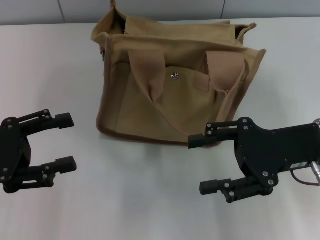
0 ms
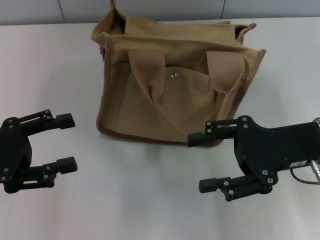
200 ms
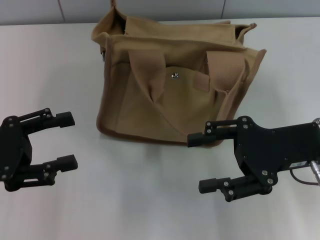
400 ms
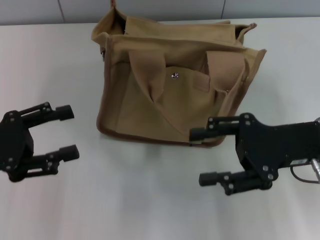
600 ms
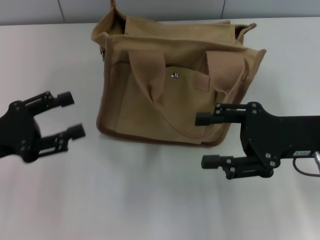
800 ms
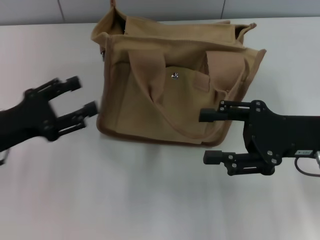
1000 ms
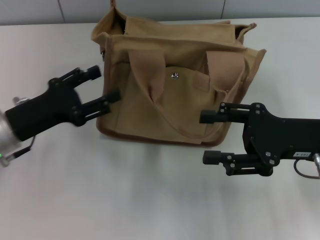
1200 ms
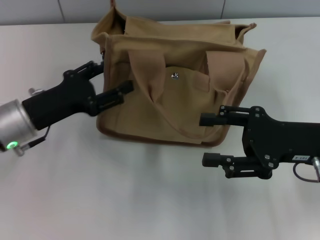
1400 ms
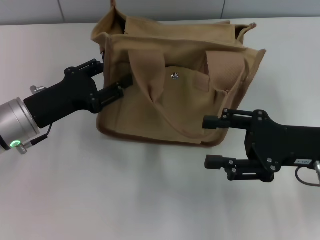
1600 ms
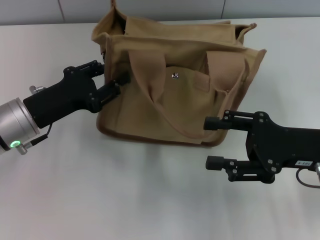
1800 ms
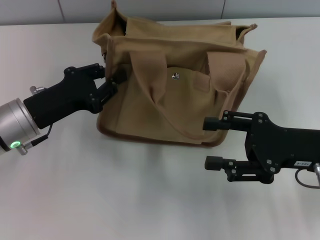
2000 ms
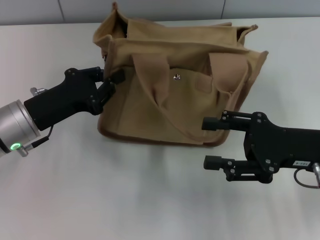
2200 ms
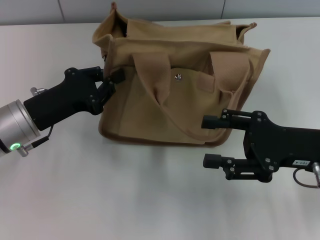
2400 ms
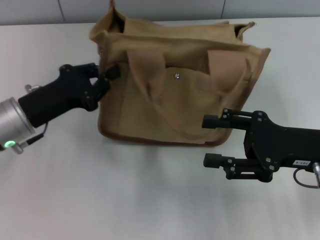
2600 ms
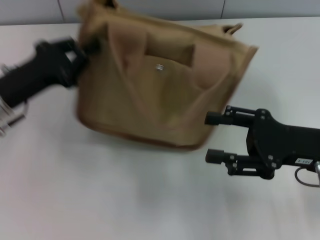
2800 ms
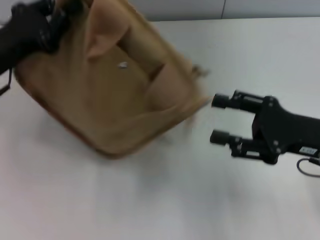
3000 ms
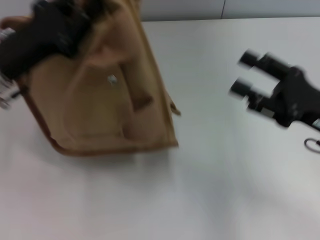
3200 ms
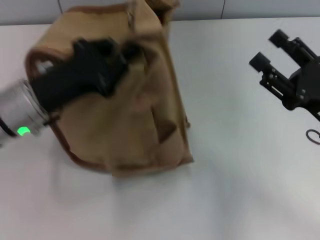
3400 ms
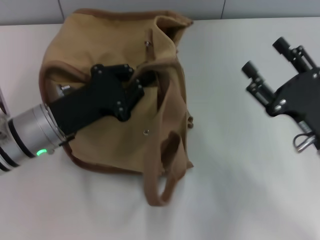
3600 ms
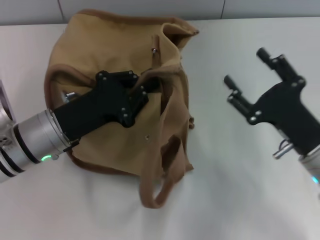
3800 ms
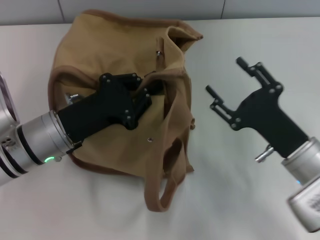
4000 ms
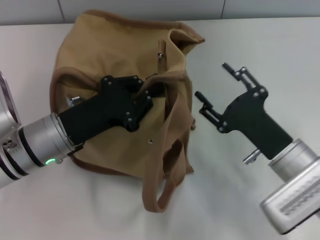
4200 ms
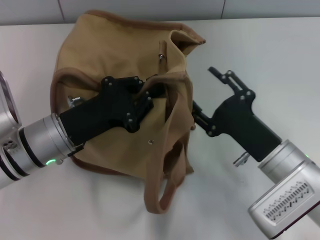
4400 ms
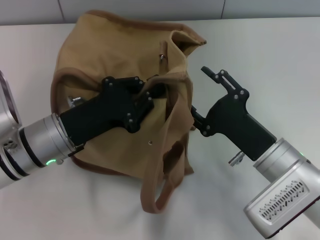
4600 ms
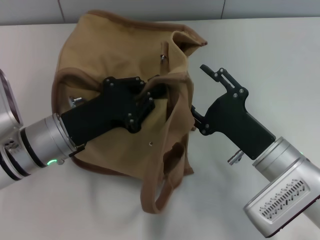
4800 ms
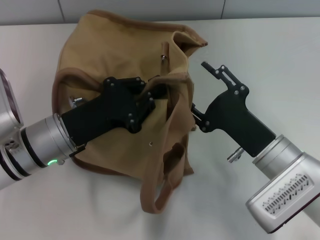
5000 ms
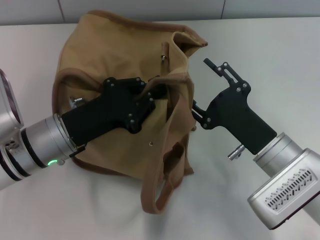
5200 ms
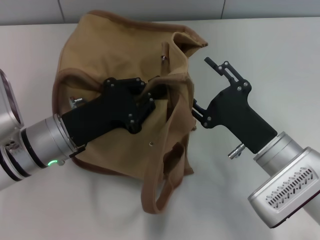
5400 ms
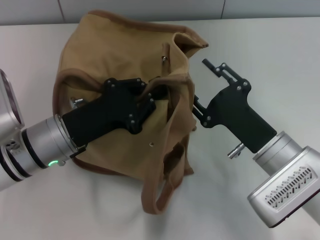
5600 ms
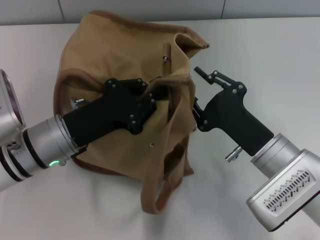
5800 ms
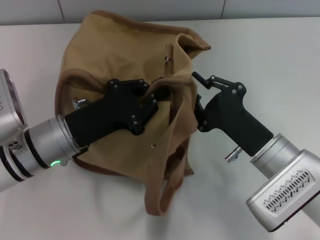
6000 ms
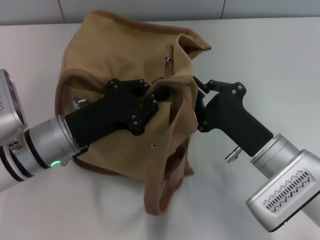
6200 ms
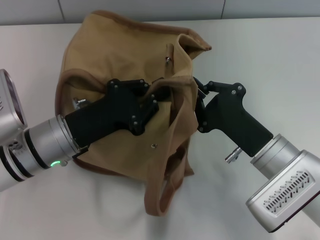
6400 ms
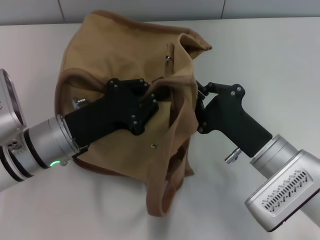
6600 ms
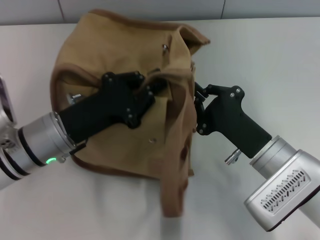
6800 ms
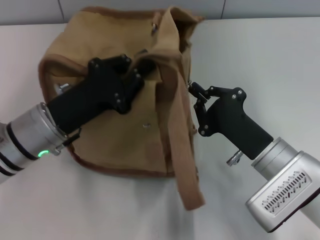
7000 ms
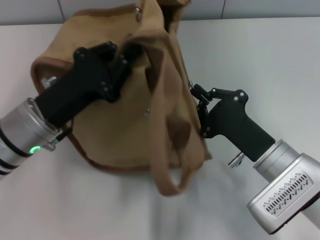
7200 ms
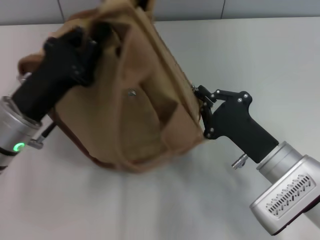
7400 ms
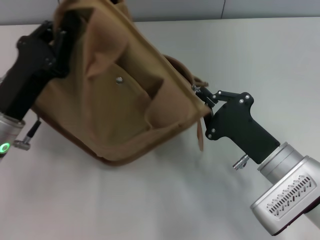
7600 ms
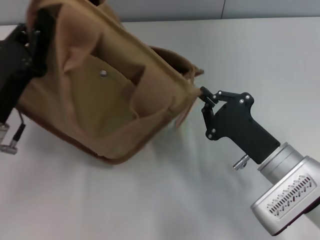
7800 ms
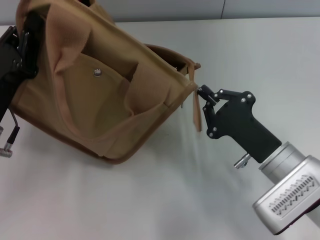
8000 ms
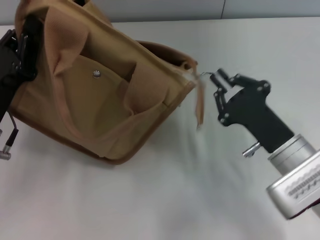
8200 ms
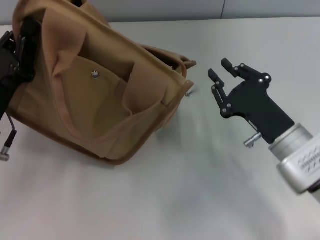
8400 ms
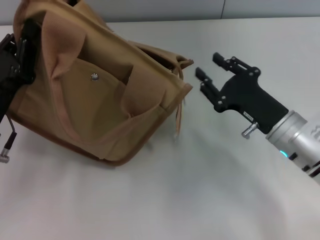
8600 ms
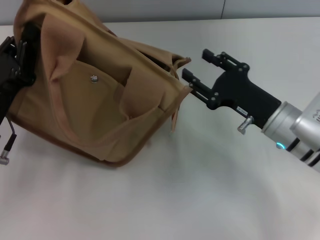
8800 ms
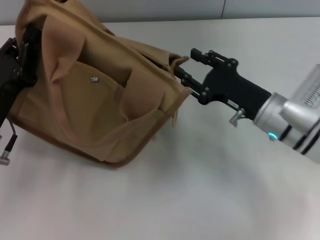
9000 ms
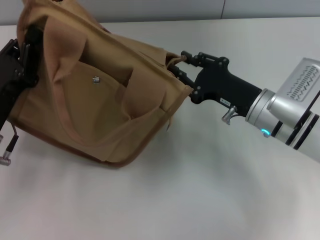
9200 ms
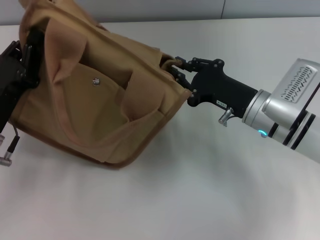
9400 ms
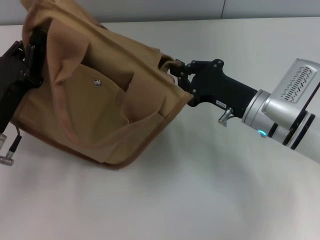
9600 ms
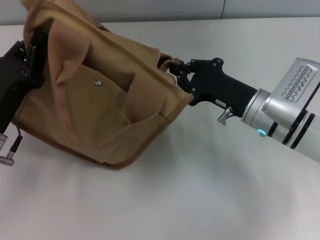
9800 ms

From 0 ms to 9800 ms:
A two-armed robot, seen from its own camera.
Step, from 0 ms to 8200 ms: Pull open the zipper with your right hand.
From 0 ms to 1400 ms: The left gripper moves to the right and forward, approximately 10 cm.
From 1400 ms to 2800 ms: The left gripper closes up.
From 2800 ms to 4200 ms: The right gripper goes roughly 10 cm downward and to the left. The left gripper moves to the right, approximately 5 cm.
From 4200 ms to 5600 ms: The grippers make only small movements.
From 5600 ms to 7000 ms: The right gripper closes its fingers.
From 7000 ms to 8400 ms: The left gripper travels to the left by approximately 5 cm.
From 8400 ms to 9800 ms: The right gripper goes approximately 5 cm forward, and opens and closes again.

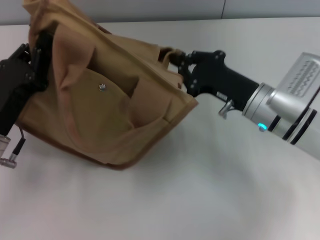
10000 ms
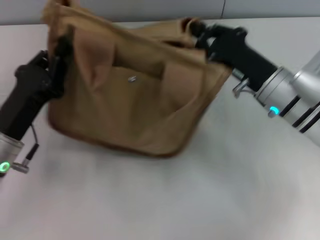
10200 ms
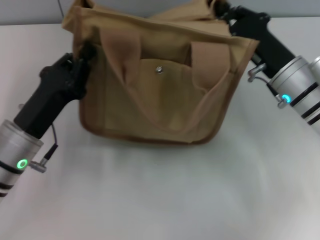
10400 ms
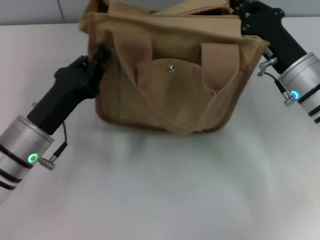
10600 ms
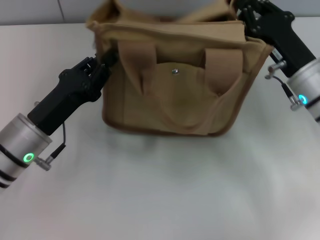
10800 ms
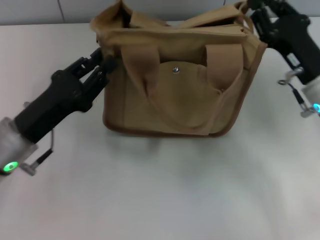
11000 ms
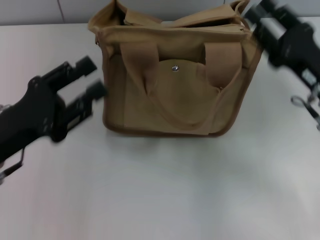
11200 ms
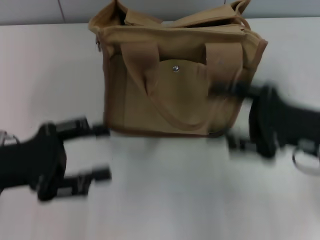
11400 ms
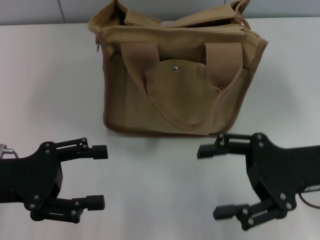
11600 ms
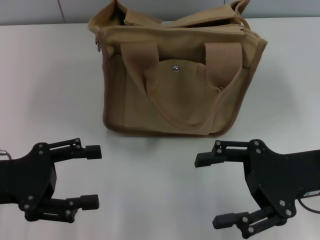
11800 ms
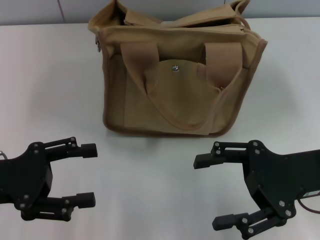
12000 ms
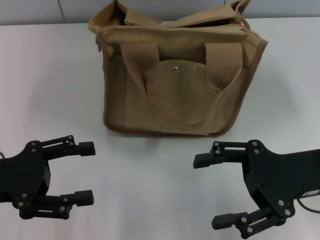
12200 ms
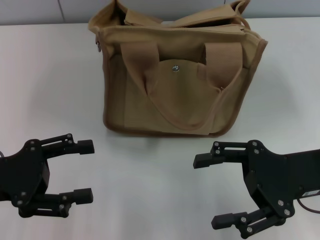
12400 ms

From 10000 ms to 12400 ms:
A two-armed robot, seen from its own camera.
From 10000 ms to 11200 ms: The right gripper moves to the right, about 10 cm, and opens.
From 11200 ms to 12400 ms: The left gripper opens up; the right gripper moves approximately 5 cm, and opens its fingers.

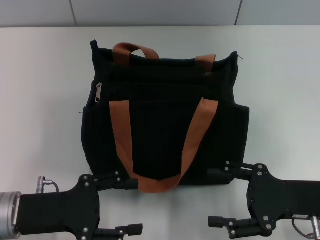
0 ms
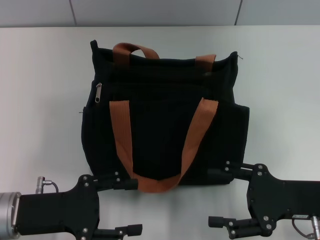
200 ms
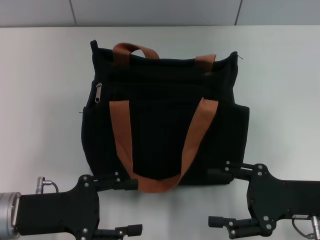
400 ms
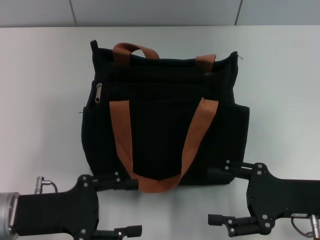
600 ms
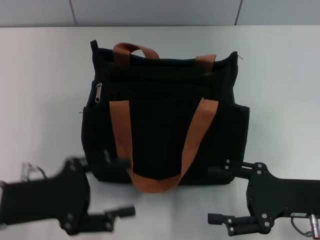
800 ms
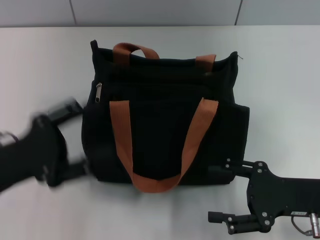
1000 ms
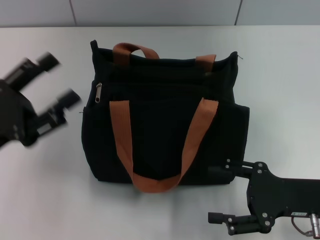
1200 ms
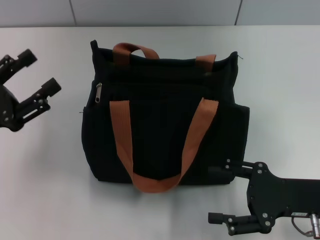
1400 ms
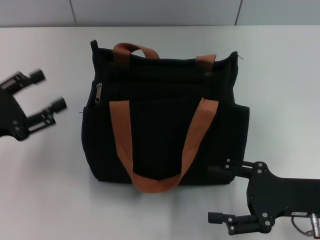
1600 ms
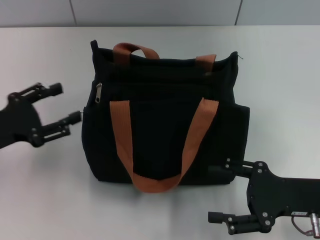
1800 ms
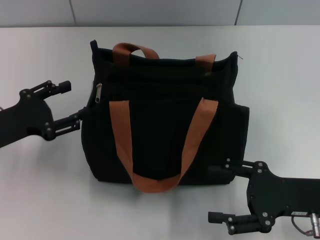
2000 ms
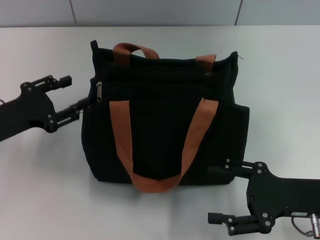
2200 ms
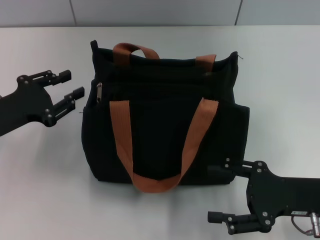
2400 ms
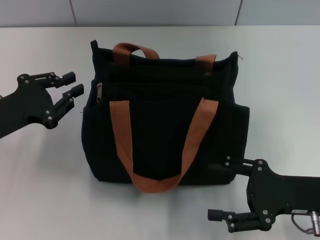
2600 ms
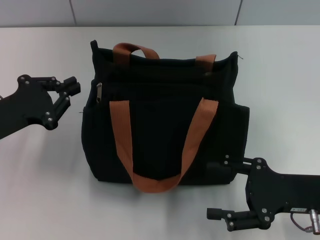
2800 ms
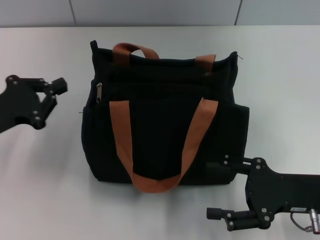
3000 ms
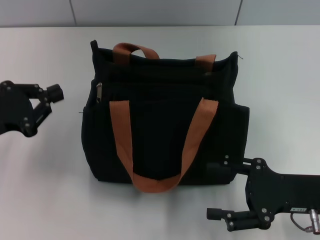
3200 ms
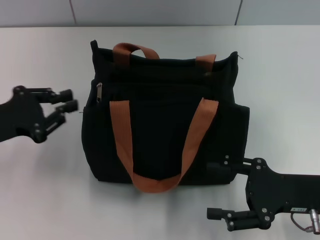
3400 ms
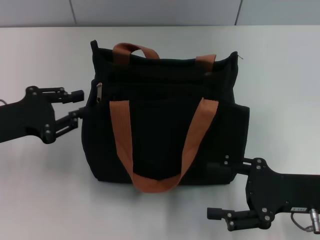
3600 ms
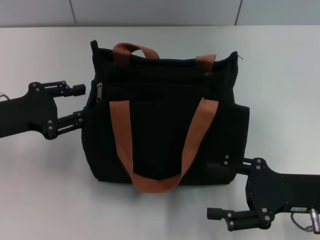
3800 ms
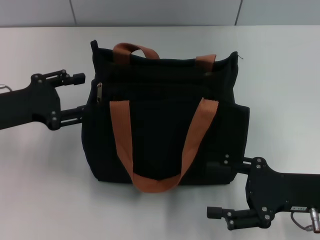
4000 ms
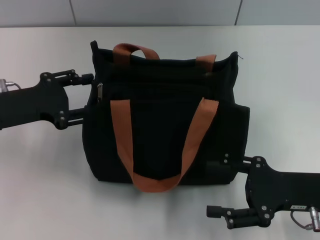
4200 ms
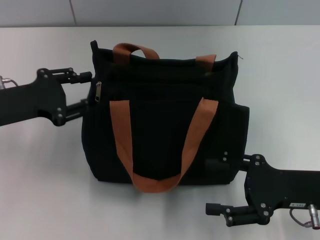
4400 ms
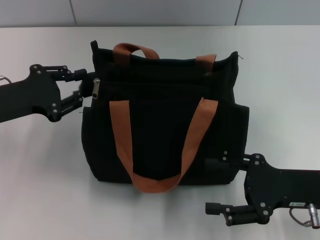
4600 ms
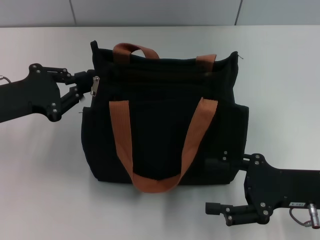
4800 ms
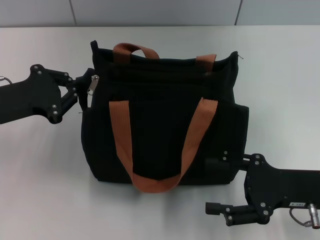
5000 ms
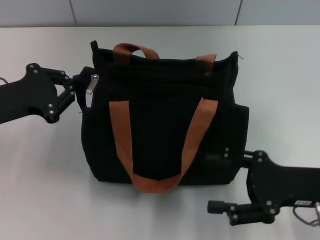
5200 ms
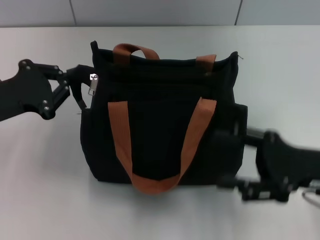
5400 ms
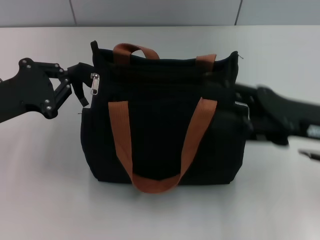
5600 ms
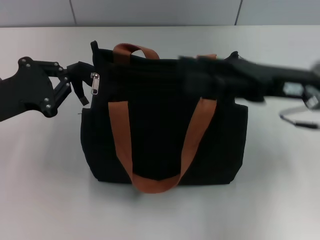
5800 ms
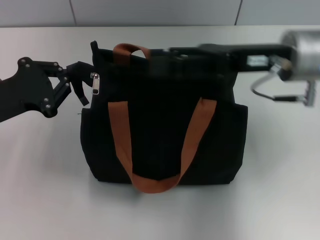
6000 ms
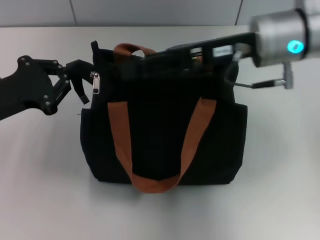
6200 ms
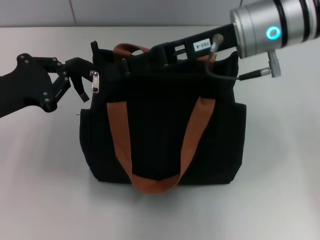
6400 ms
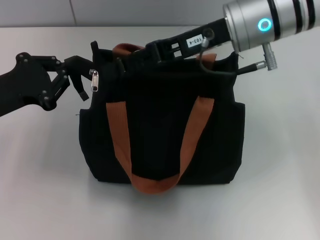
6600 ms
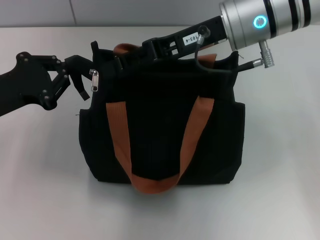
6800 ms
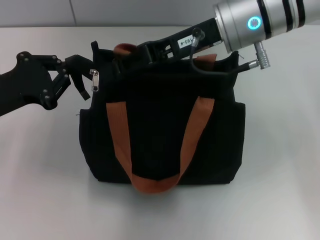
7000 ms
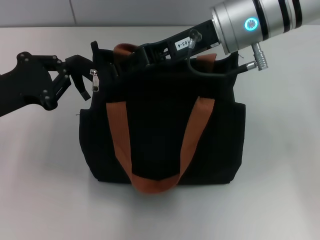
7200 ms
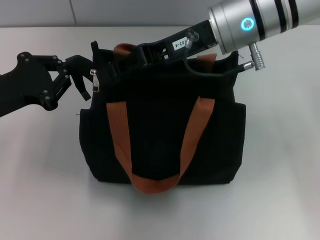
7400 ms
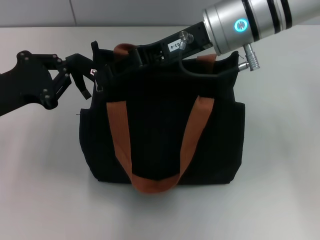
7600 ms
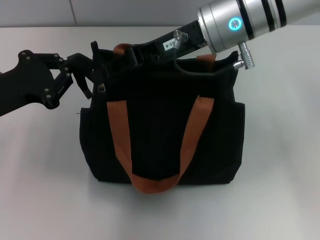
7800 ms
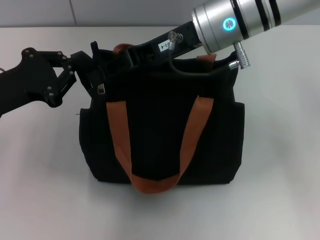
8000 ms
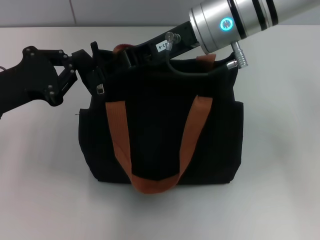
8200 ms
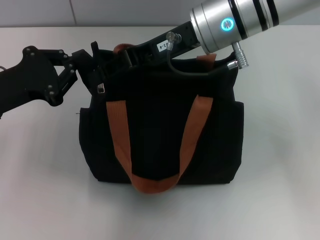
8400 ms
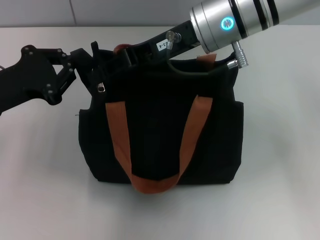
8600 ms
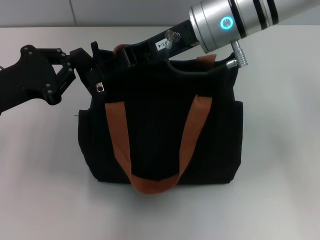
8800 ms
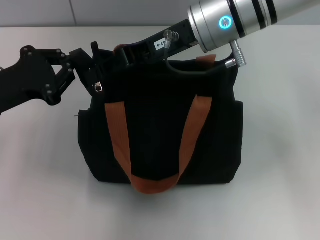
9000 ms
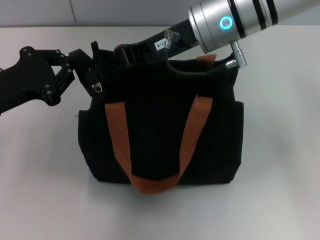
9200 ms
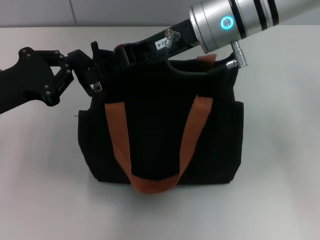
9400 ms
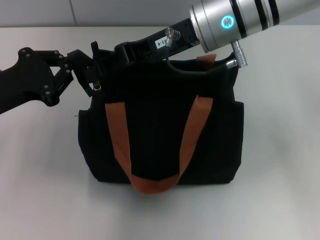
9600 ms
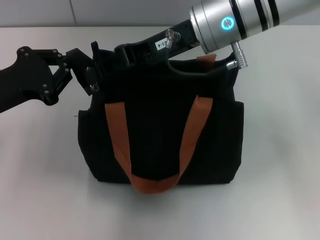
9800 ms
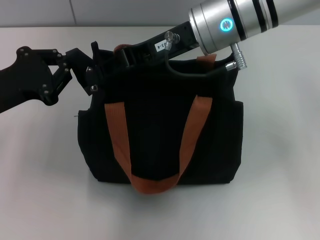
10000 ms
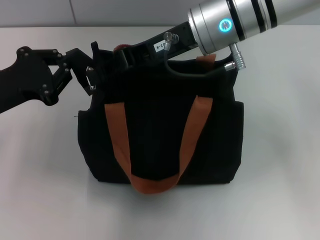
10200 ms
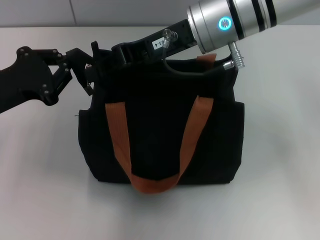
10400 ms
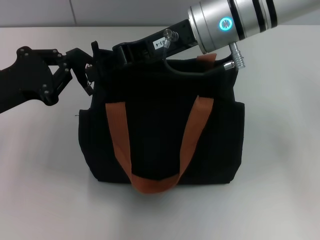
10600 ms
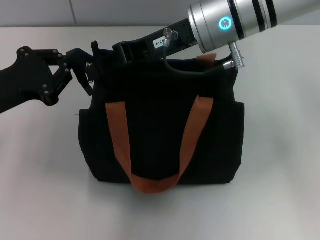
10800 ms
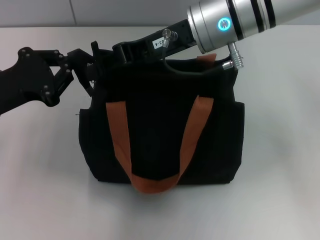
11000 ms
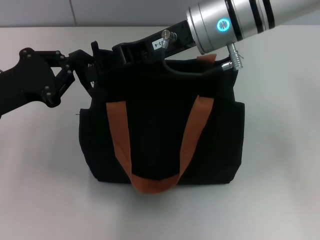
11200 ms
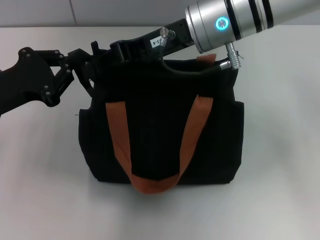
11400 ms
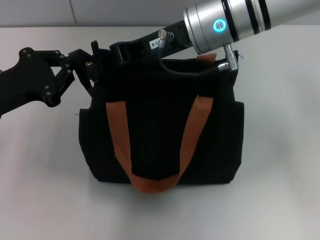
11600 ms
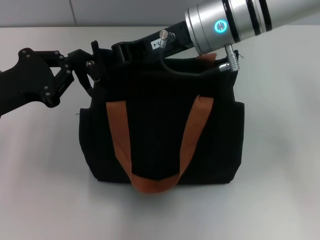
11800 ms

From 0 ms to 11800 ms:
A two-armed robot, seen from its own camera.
From 0 ms to 1400 ms: The left gripper travels to the left by about 5 cm.
From 1400 ms to 3000 ms: The left gripper closes up.
From 3000 ms to 4400 ms: The left gripper opens.
From 4400 ms to 6000 ms: The right gripper travels upward, forward and to the left by about 20 cm, while the left gripper closes its fingers.
From 6000 ms to 7400 ms: The right gripper is displaced to the left by some 10 cm, and closes its fingers.
From 7400 ms to 8800 ms: The grippers make only small movements.
From 8800 ms to 11800 ms: Both grippers stay about where they are.
